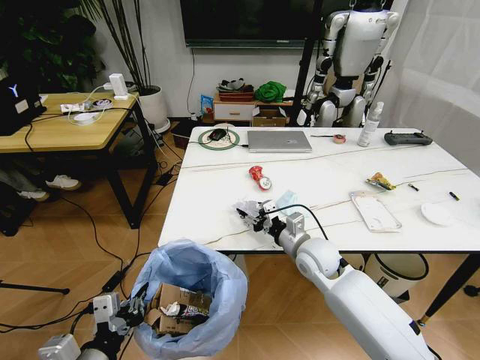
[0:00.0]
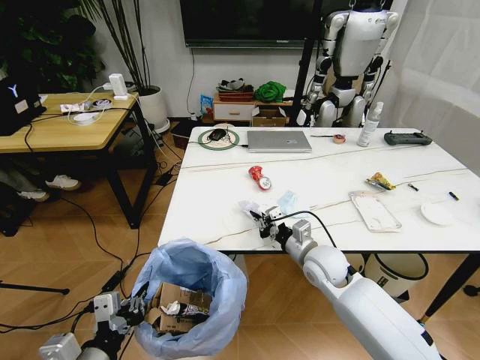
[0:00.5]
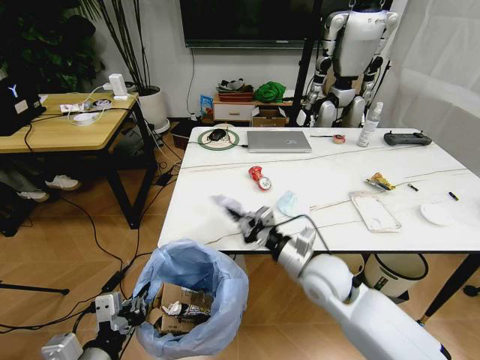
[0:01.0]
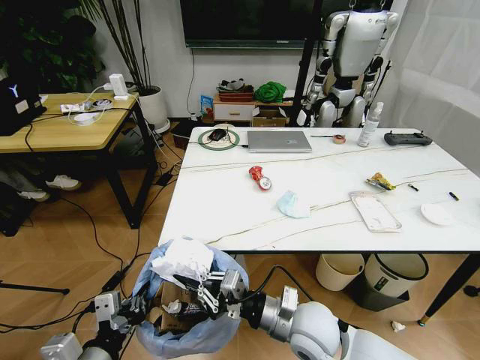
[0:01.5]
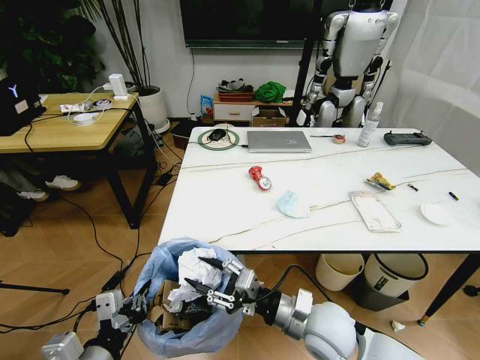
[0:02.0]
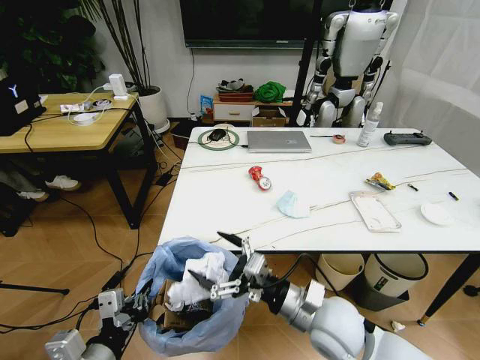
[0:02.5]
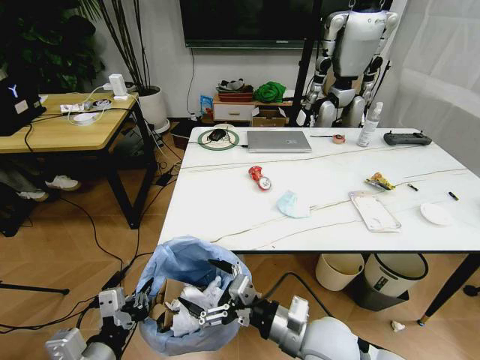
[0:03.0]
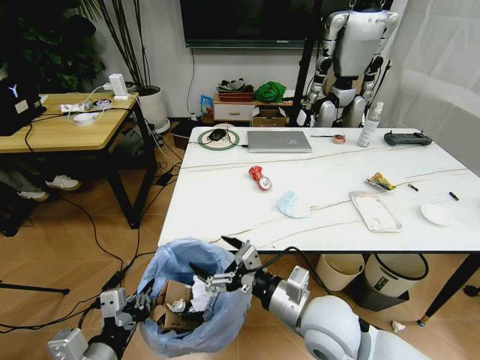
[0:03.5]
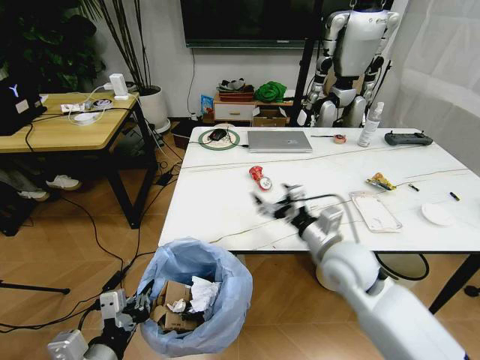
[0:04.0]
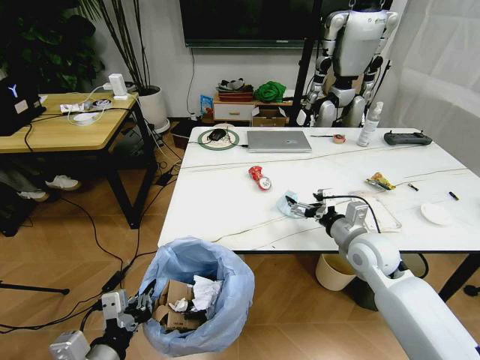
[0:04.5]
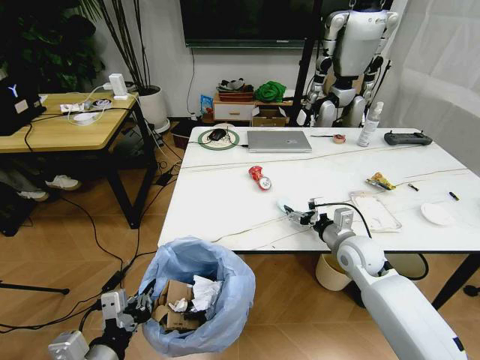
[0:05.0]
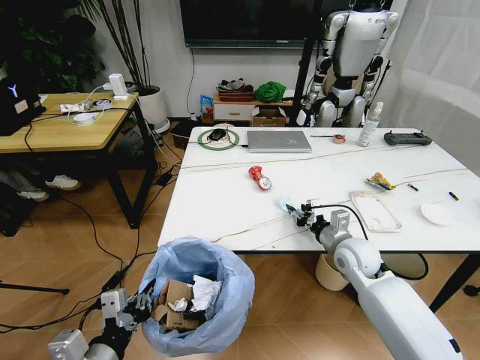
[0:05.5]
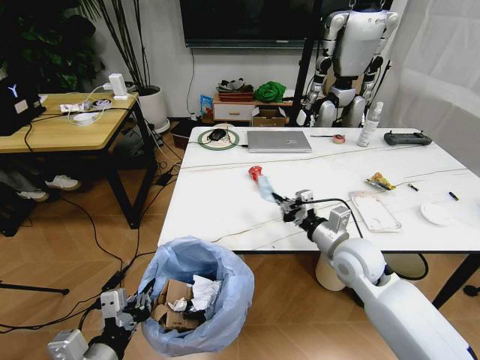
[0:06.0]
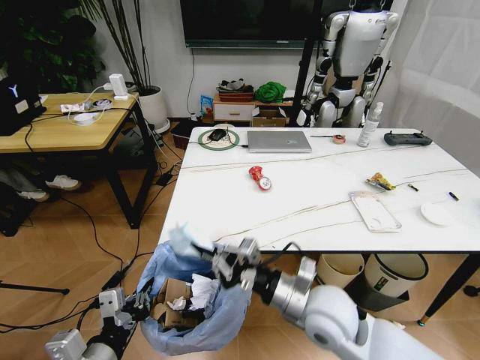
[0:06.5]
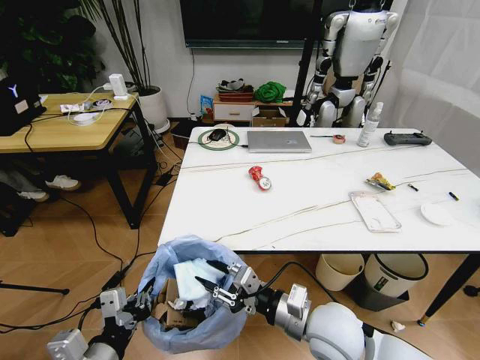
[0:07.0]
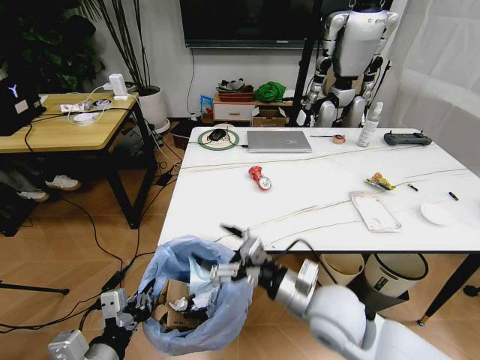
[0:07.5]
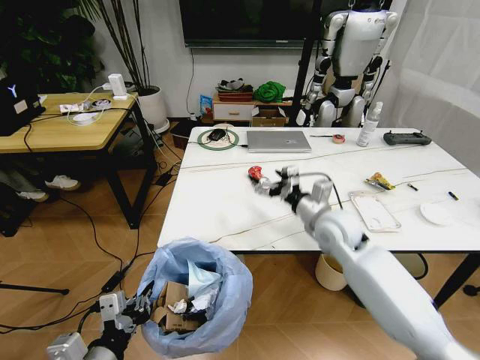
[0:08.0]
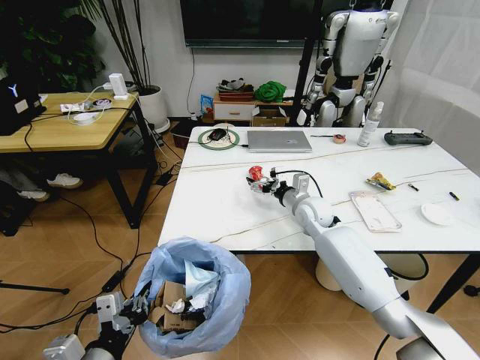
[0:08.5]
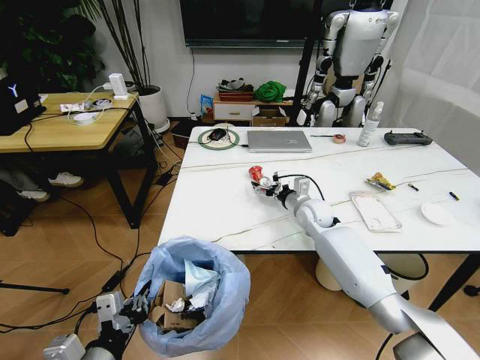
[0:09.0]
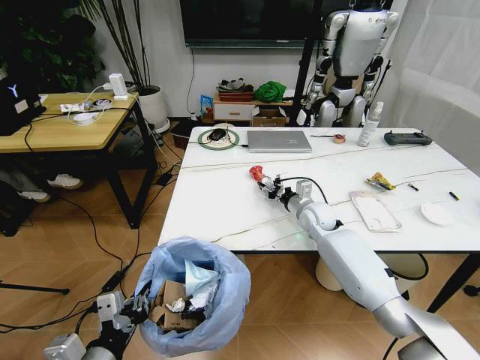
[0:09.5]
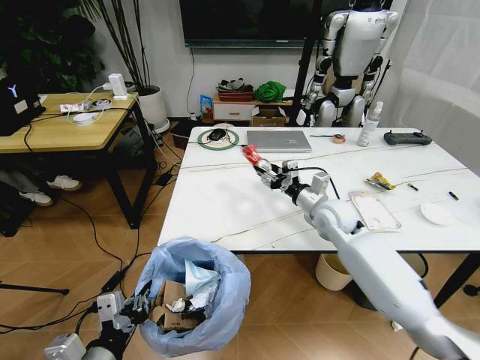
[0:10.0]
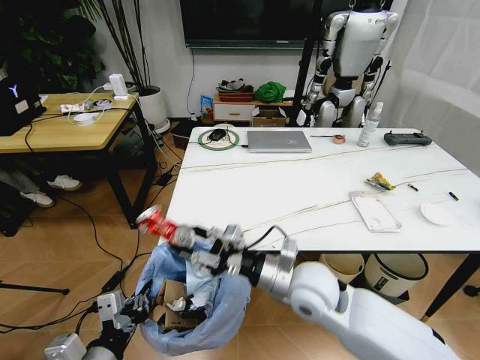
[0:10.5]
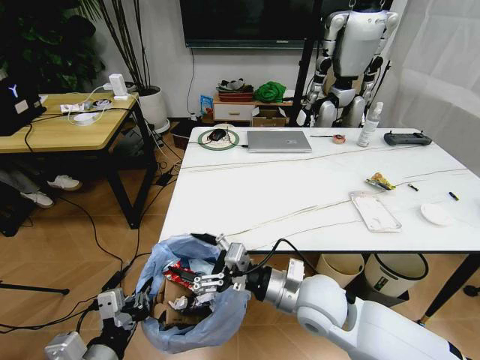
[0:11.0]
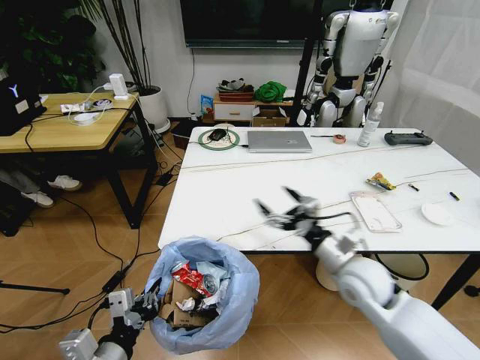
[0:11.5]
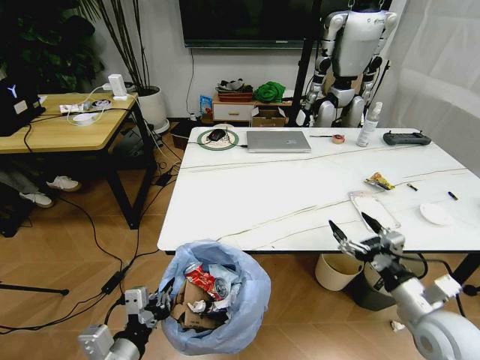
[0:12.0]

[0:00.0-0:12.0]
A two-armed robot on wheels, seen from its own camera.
Task of the whole recording: Pick up the trash bin and place the trash from the table into it.
0:00.0 to 0:02.0: The right gripper goes some 15 cm backward, and closes, then opens again.
0:02.0 to 0:04.0: The right gripper shifts about 15 cm forward, upward and to the right, and opens.
0:04.0 to 0:06.0: The right gripper closes up.
0:06.0 to 0:08.0: The right gripper travels backward and back again, about 15 cm each way, and opens its fingers.
0:08.0 to 0:10.0: The right gripper goes roughly 5 cm forward, and closes its fingers.
0:10.0 to 0:12.0: The right gripper moves forward and backward over some 25 cm, changing direction 2 times, and opens its fingers.

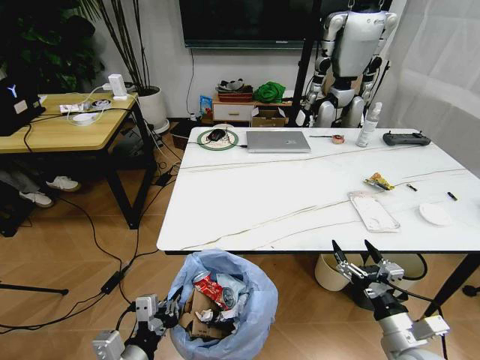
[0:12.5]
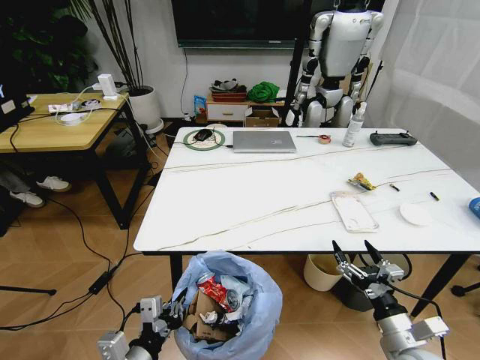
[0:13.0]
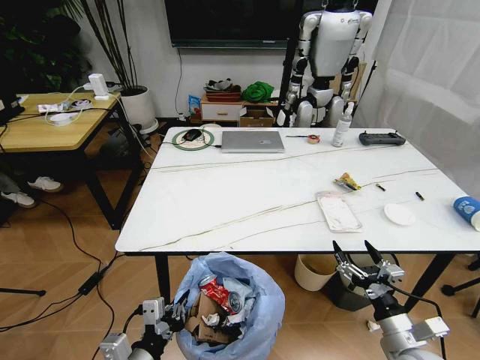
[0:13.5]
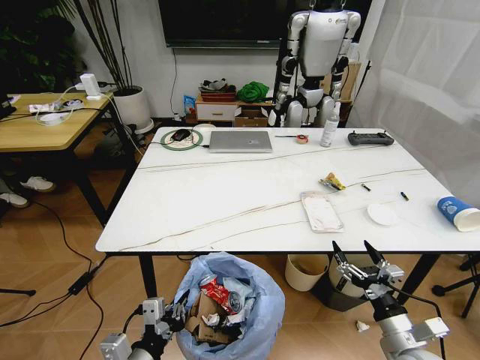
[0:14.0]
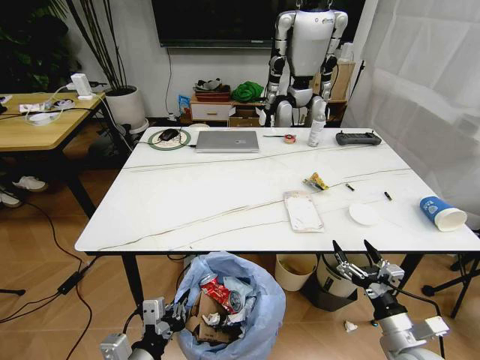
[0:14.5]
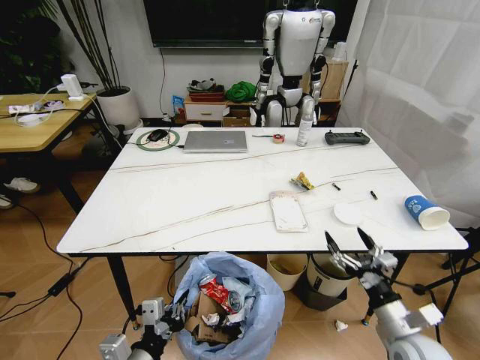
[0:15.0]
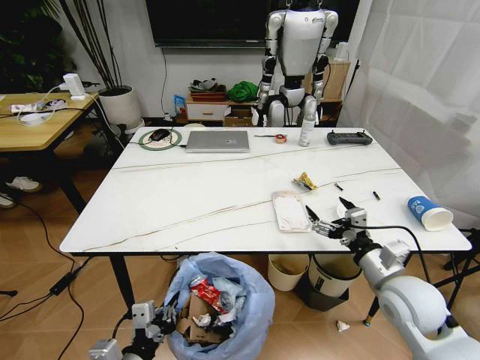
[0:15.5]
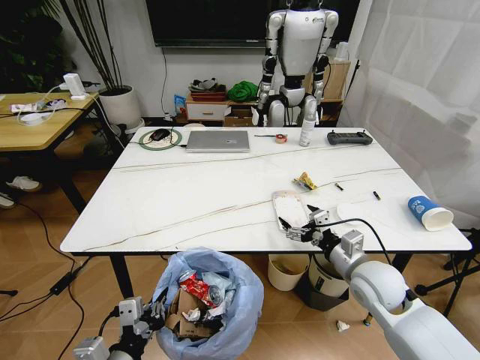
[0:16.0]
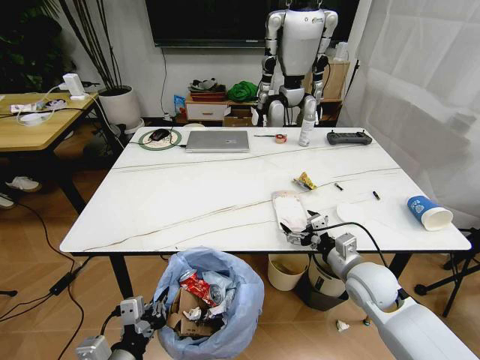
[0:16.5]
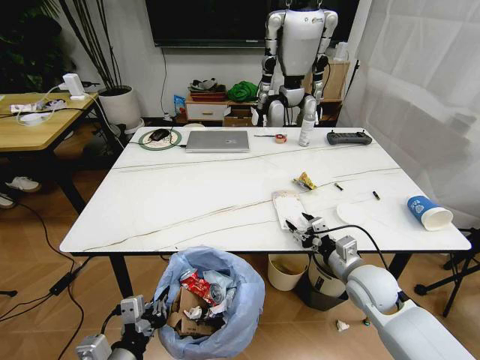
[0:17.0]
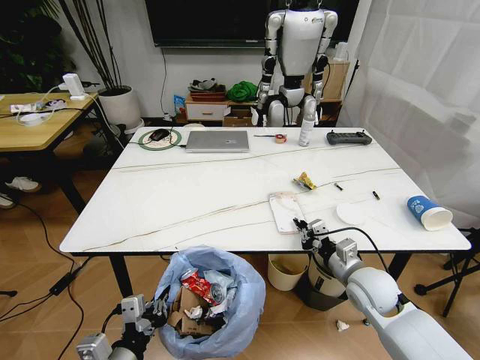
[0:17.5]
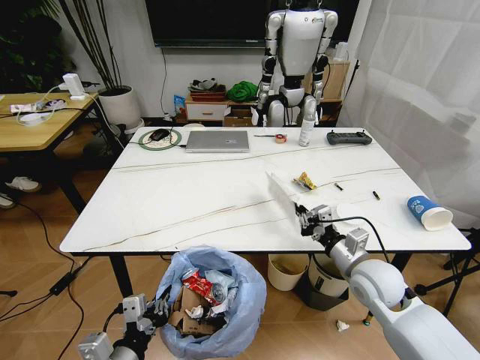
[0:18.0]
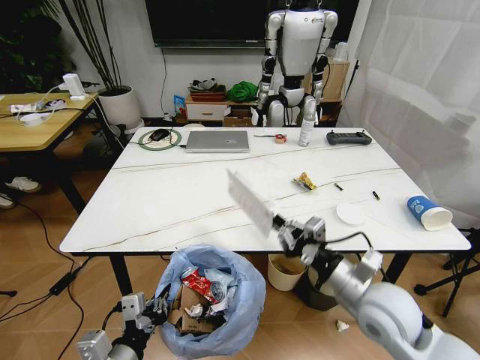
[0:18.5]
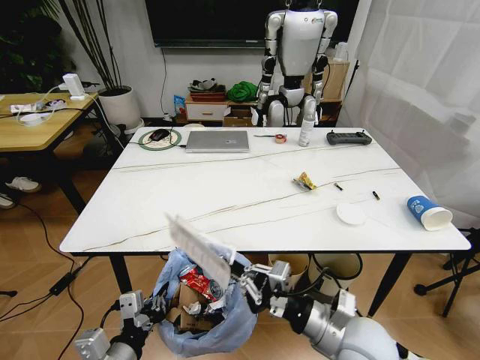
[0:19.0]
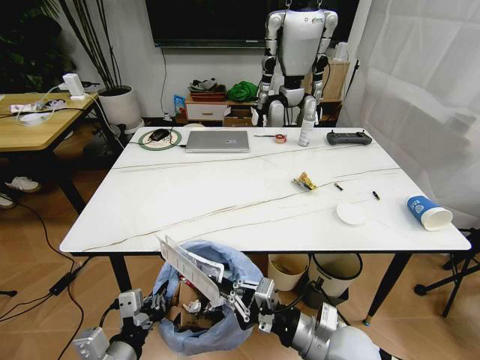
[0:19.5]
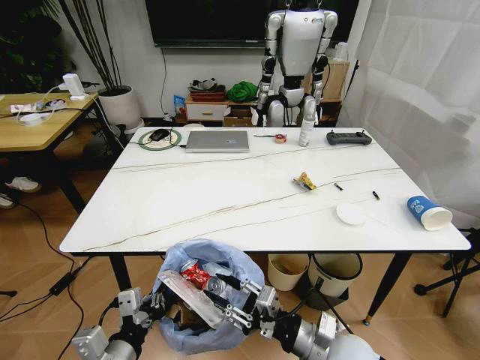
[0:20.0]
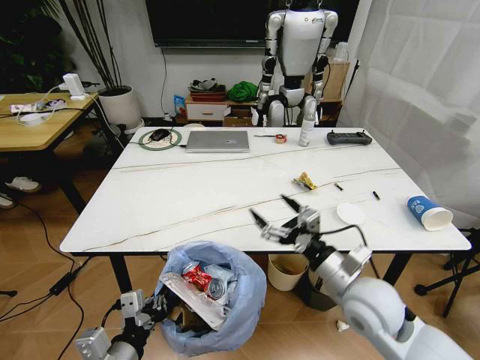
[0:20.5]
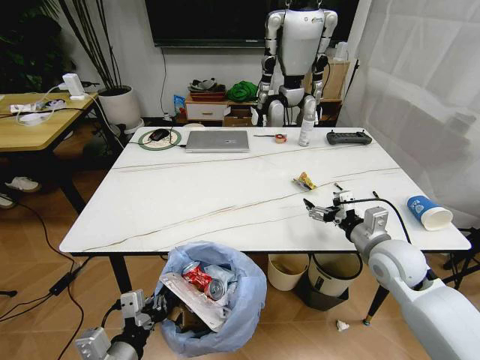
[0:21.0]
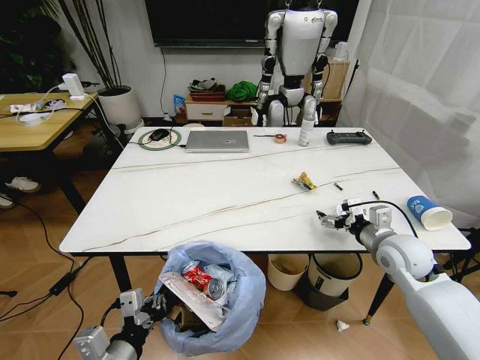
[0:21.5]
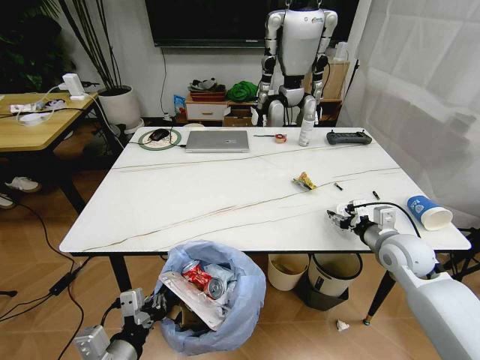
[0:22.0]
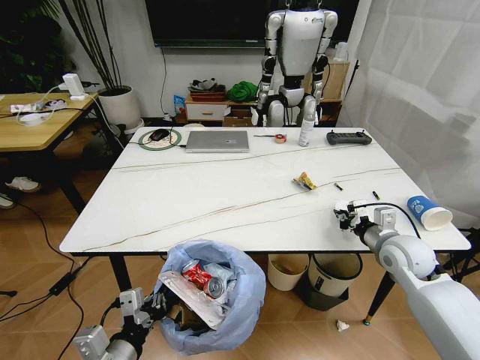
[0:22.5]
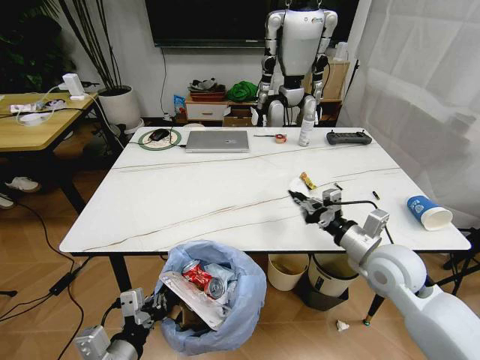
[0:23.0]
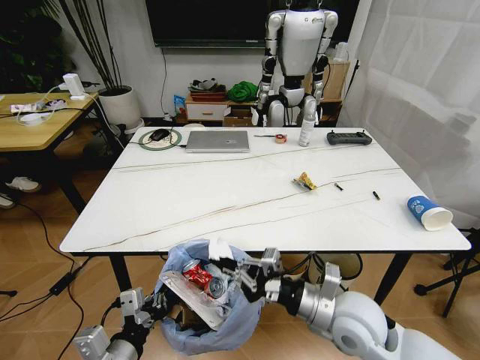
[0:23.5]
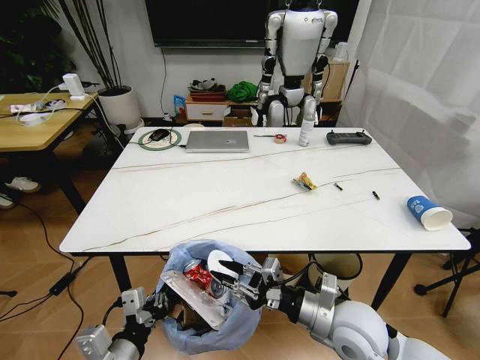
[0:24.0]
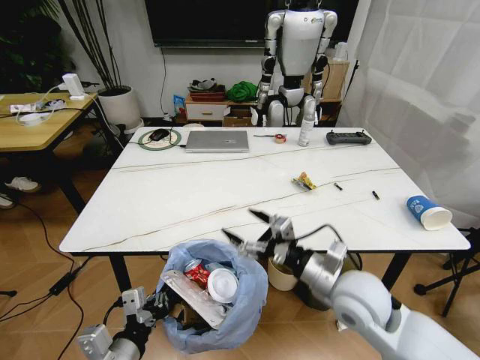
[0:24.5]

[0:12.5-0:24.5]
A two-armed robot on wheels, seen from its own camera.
Task of the whole recording: Pick up the trash bin and place the trash from the table into it.
0:14.5 to 0:16.5: The right gripper heads forward and to the left, covering about 15 cm.
0:16.5 to 0:18.5: The right gripper goes about 10 cm backward and upward, and closes its fingers.
0:18.5 to 0:20.5: The right gripper reaches some 10 cm downward, then returns, and opens up.
0:20.5 to 0:22.5: The right gripper goes about 20 cm to the right and forward, and closes.
0:22.5 to 0:24.5: The right gripper is displaced to the left and backward by some 20 cm, and opens its fingers.

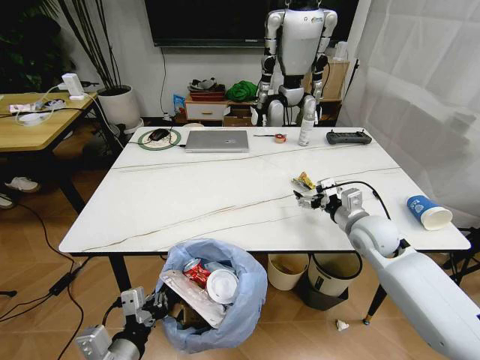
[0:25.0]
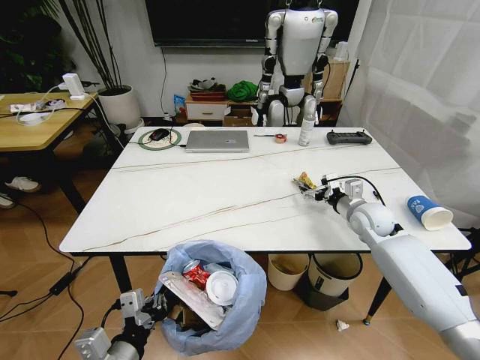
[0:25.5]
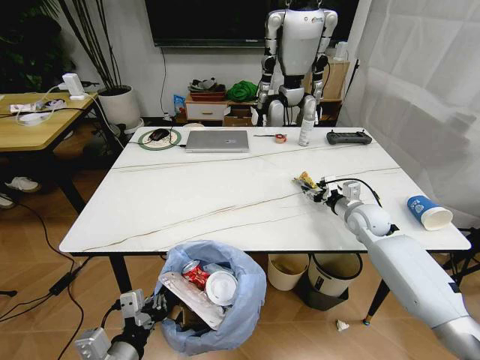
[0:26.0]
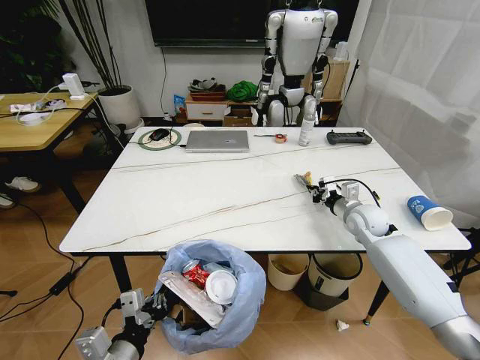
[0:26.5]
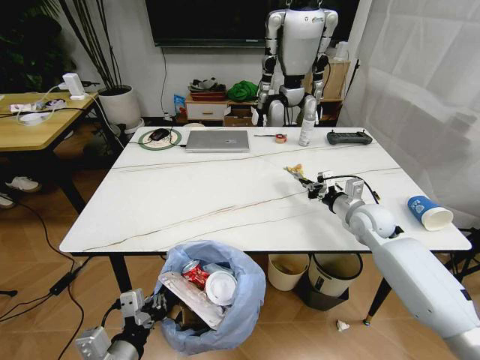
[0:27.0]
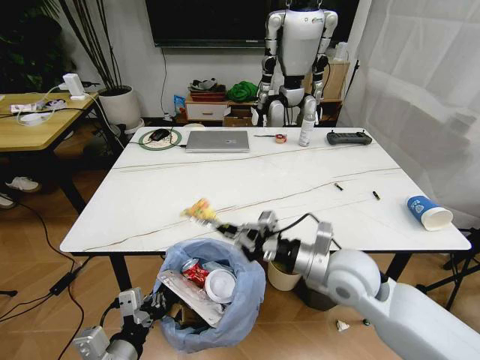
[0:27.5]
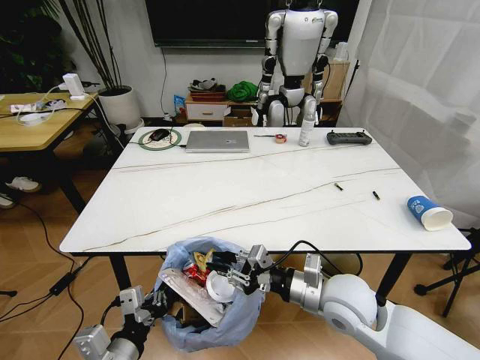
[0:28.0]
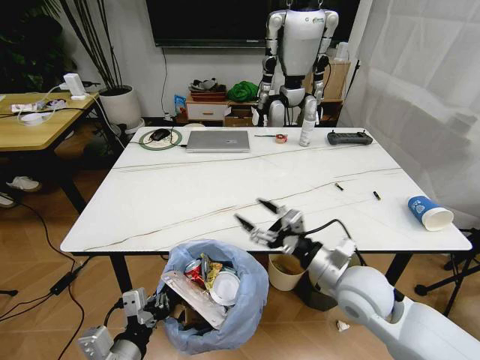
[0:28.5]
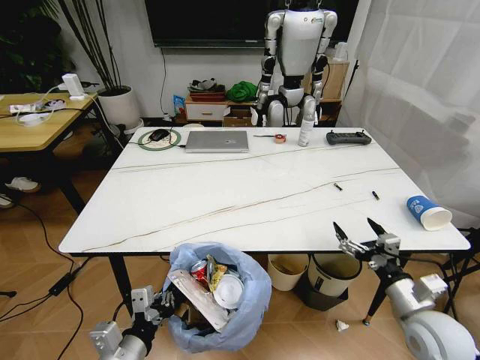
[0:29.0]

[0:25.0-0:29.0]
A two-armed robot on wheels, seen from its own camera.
Task of the whole recording: Pick up the trash bin and place the trash from the table into it.
0:25.0 to 0:27.0: The right gripper heads forward, covering approximately 5 cm, and closes up.
0:27.0 to 0:29.0: The right gripper heads backward, covering some 25 cm, and opens its fingers.
